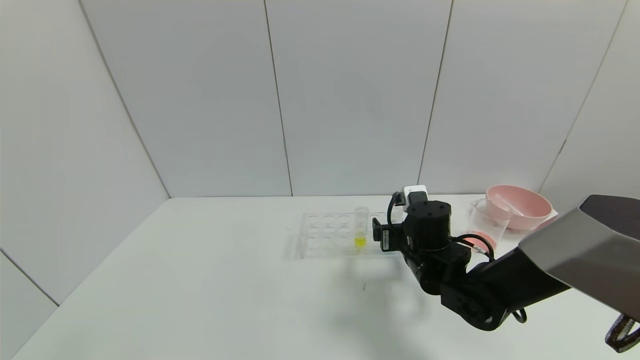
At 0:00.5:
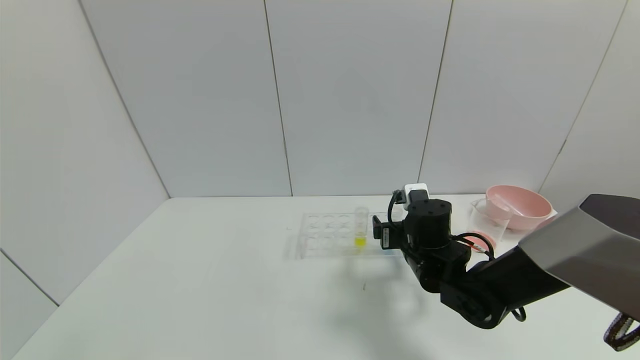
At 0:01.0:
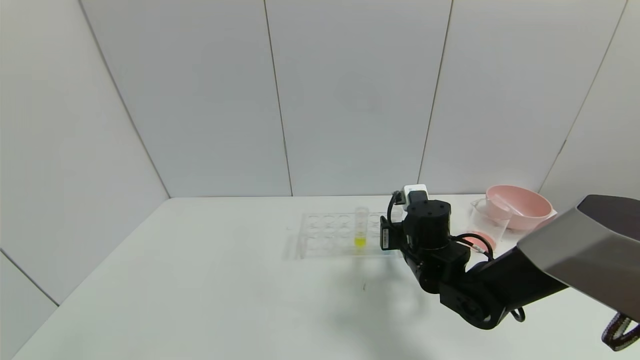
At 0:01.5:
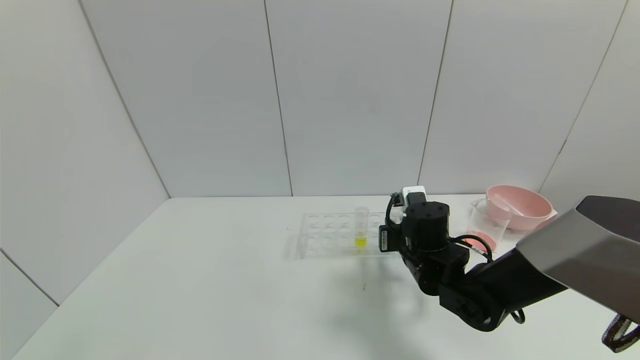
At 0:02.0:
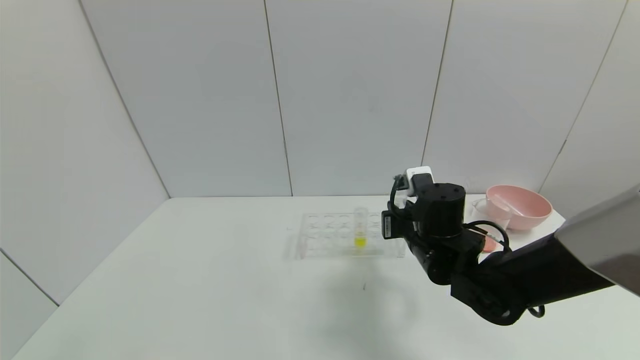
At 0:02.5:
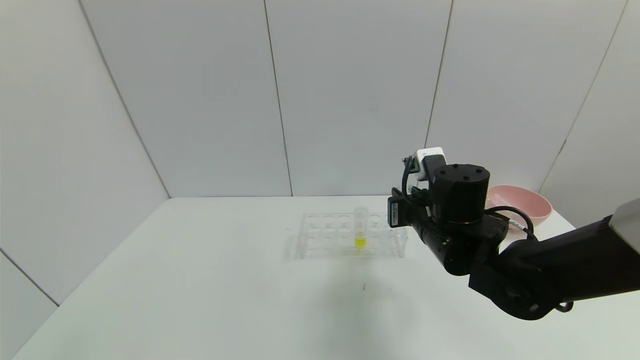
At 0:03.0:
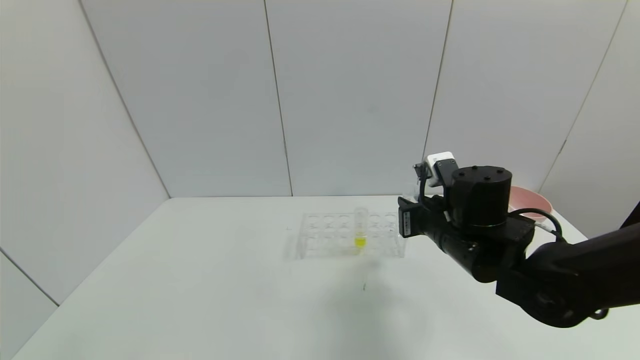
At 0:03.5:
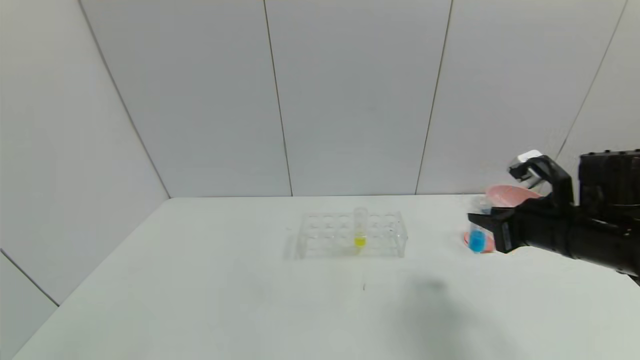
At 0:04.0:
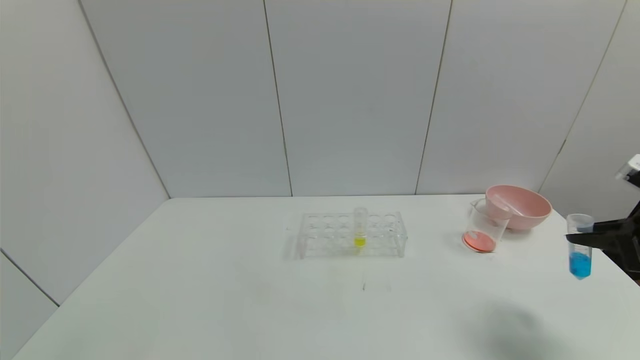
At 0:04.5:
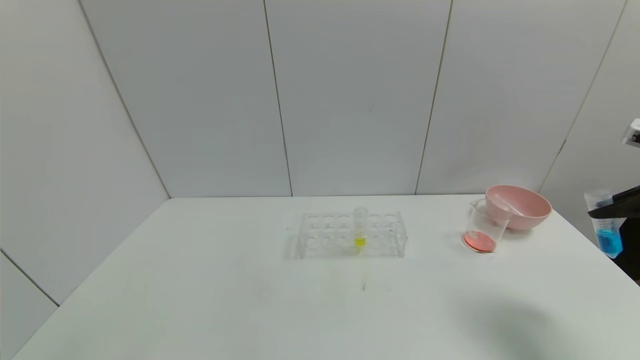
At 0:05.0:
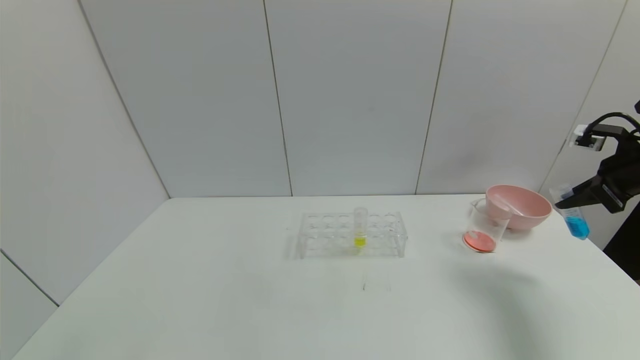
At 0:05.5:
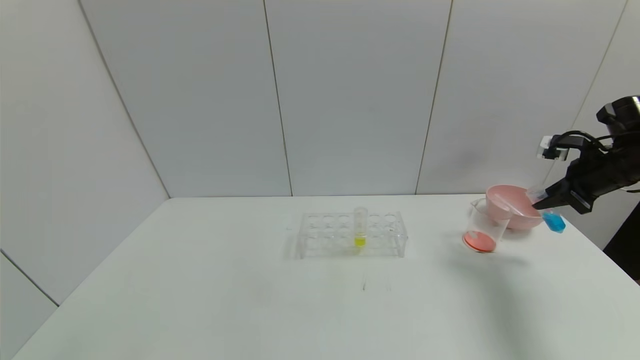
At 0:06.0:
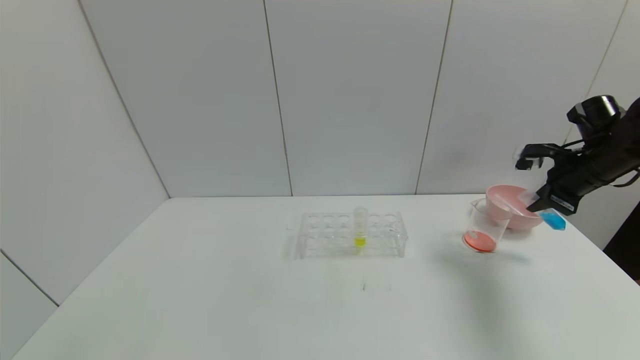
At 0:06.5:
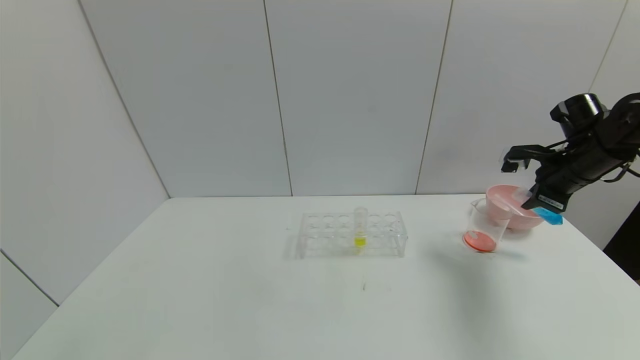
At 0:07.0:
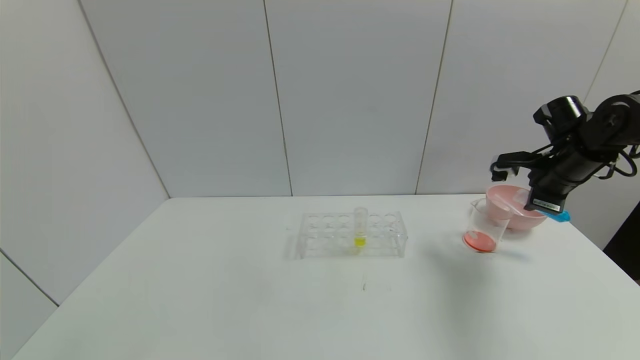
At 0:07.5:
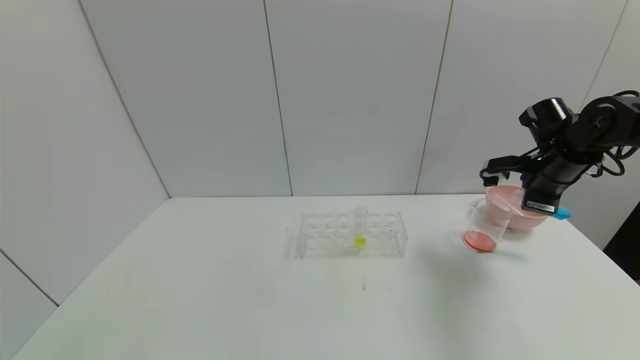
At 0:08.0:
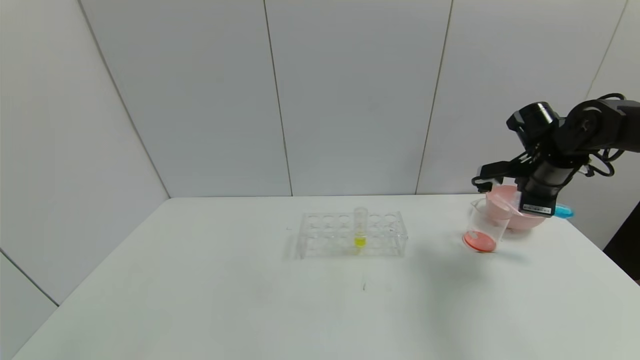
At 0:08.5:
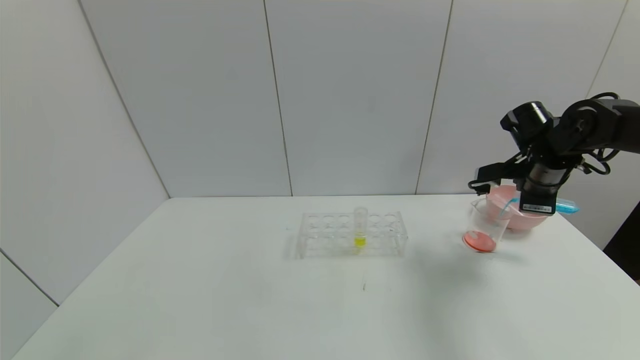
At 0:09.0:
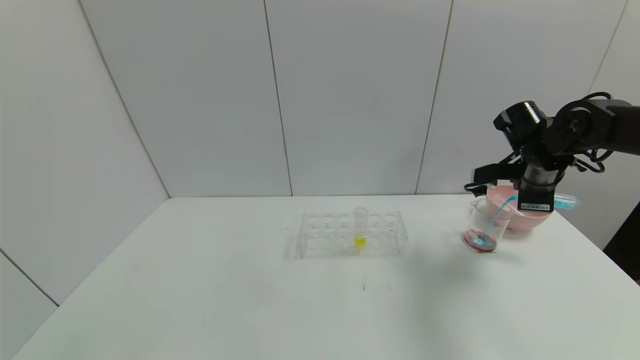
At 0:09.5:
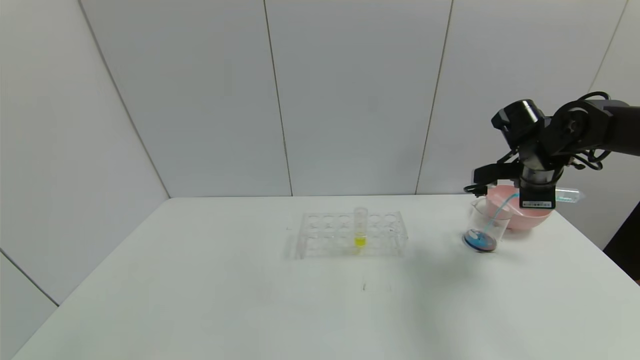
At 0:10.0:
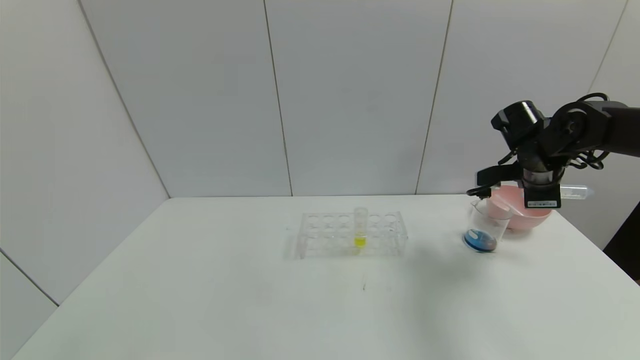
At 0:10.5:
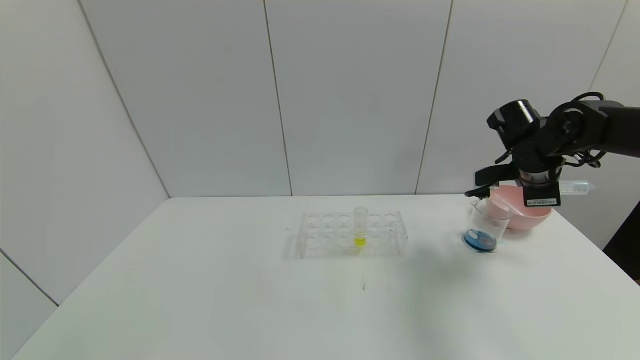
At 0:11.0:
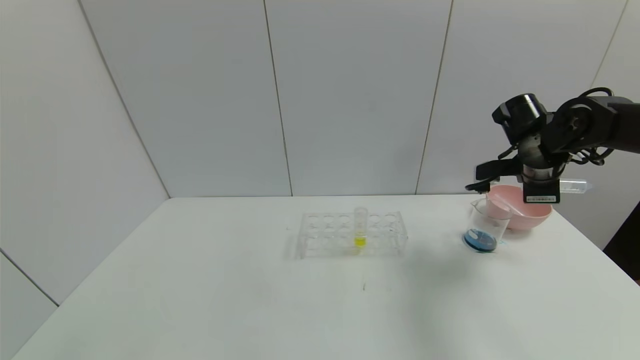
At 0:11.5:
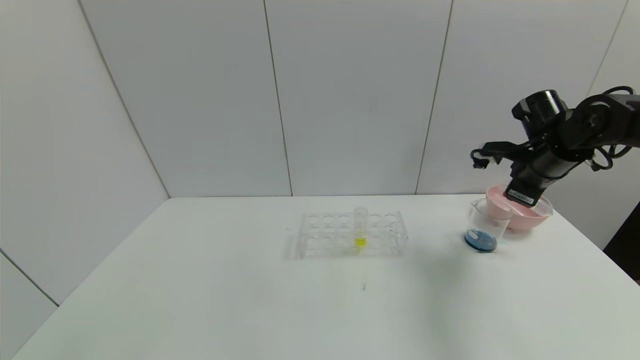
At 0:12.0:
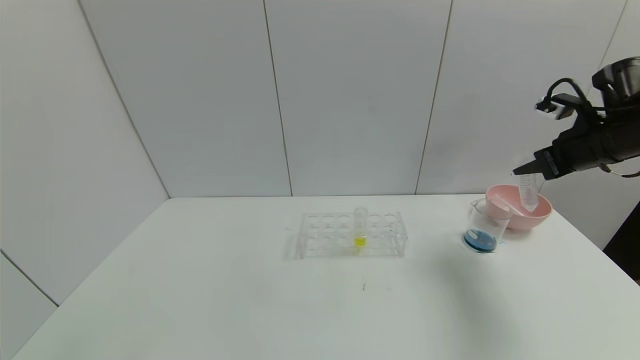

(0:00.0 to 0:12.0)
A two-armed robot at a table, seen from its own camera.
Task of the whole recording: pick up the test tube with red pigment and the test tube with blue pigment by grippers and pour them into the container.
Step, 0:02.0 - 0:10.0: Pour the blue reagent into the graduated cylinder with the right gripper.
0:00.0 - 0:02.0: The right gripper closes up.
0:02.0 - 0:04.0: The right gripper is displaced to the right by about 30 cm.
0:04.0 - 0:06.0: The right gripper is displaced forward by about 15 cm.
0:06.0 - 0:08.0: The right gripper heads to the left, covering approximately 5 cm.
0:08.0 - 0:10.0: There are only small adjustments of the grippers.
0:10.0 - 0:12.0: The right gripper heads to the right and upward, covering roughly 10 cm.

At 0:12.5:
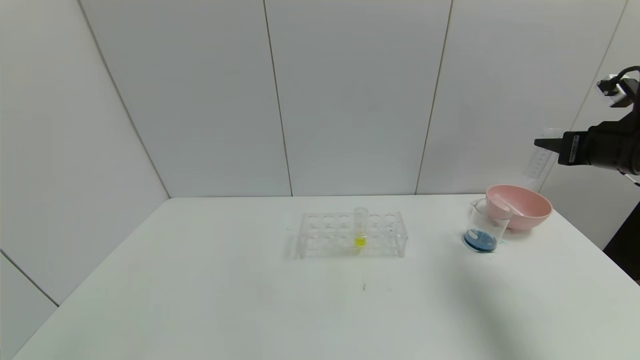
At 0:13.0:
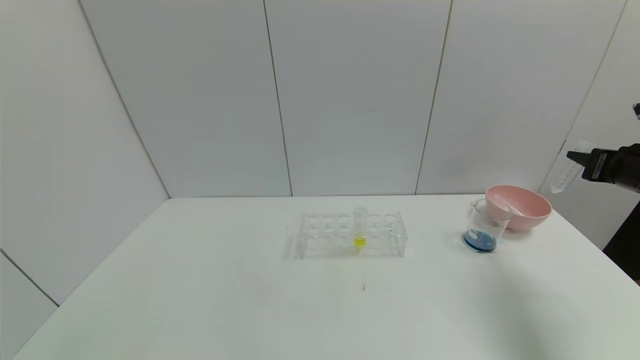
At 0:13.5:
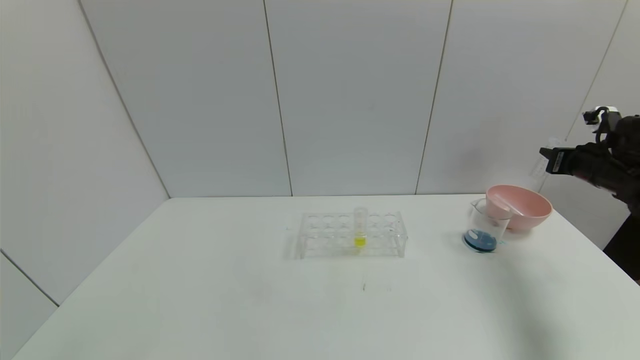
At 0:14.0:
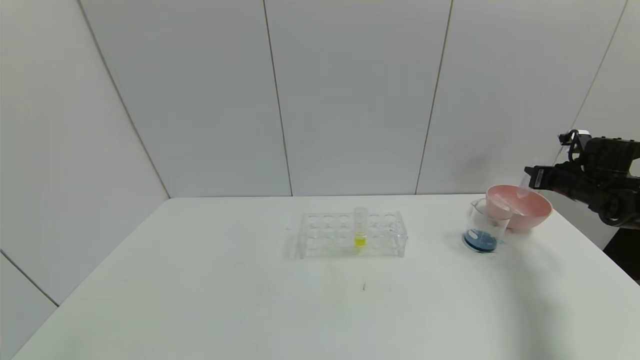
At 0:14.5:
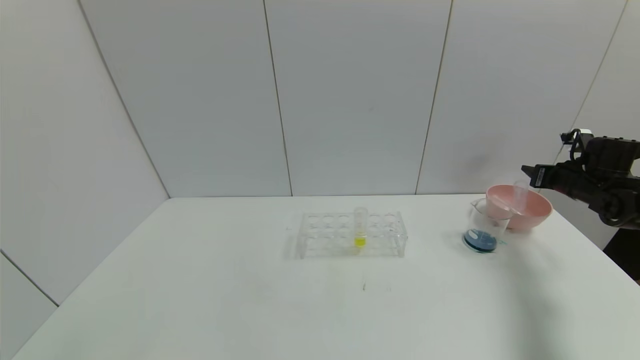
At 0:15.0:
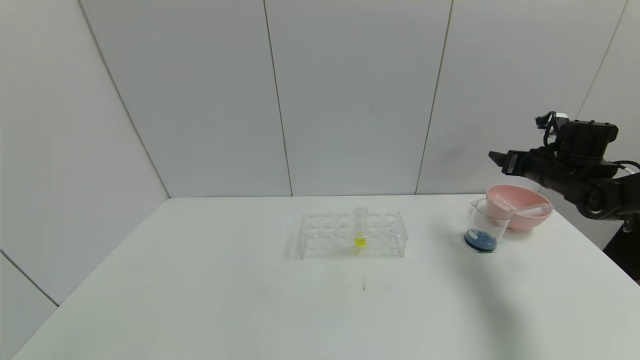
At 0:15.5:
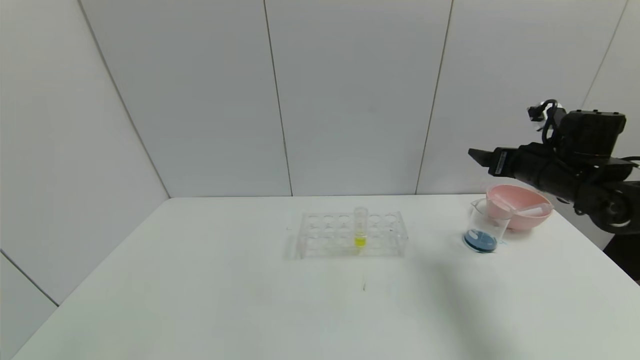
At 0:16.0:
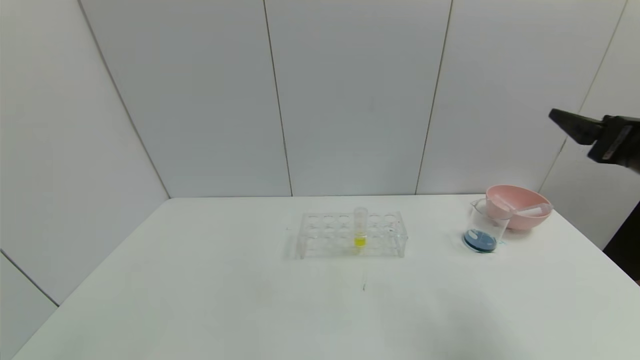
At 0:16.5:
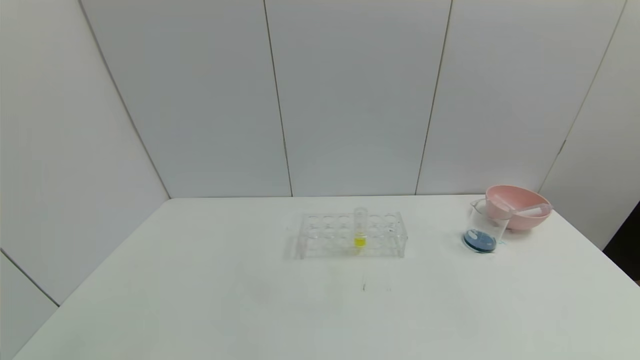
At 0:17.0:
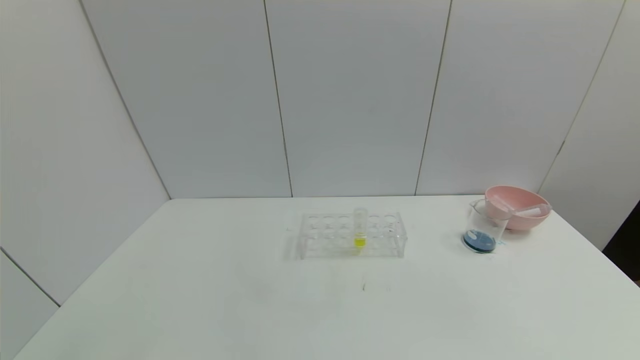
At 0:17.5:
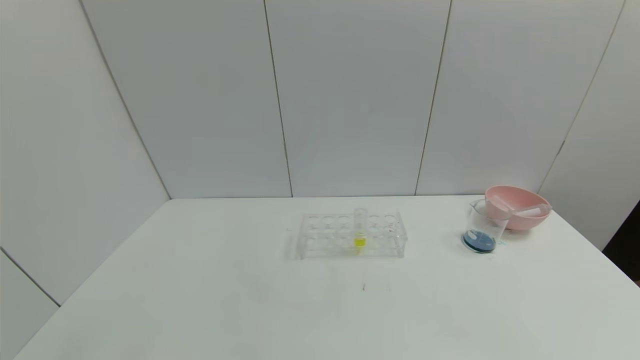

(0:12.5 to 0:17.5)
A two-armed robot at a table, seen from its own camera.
Task of the whole recording: pick up the test tube with red pigment and the test tube with blue pigment by grippers and pour them into the container.
Step, 0:12.5 - 0:15.0: Place the test tube into the bowl with the right gripper.
0:12.5 - 0:15.0: The right gripper goes about 15 cm forward and downward, and opens its fingers.
0:15.0 - 0:17.5: The right gripper moves backward, roughly 50 cm.
